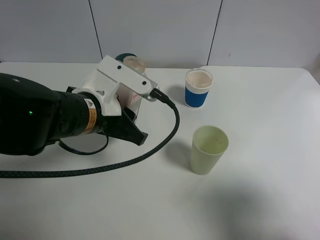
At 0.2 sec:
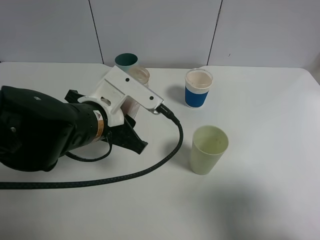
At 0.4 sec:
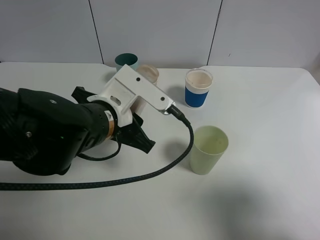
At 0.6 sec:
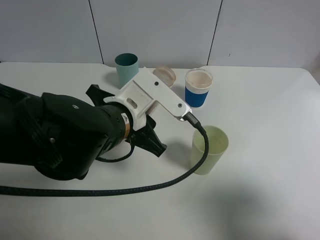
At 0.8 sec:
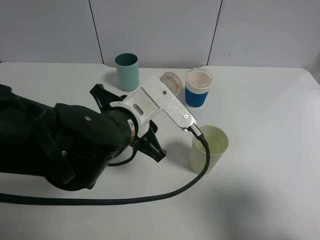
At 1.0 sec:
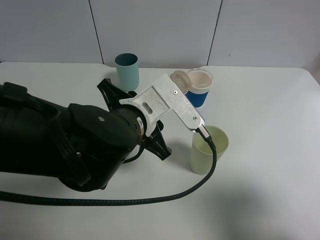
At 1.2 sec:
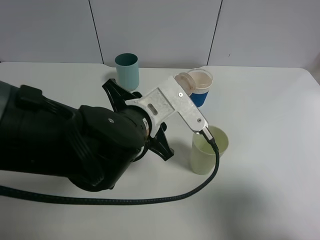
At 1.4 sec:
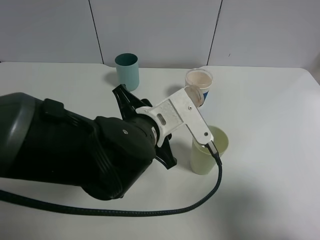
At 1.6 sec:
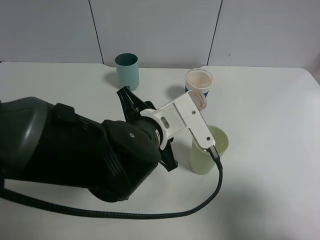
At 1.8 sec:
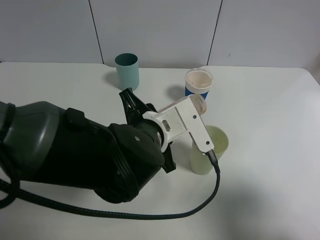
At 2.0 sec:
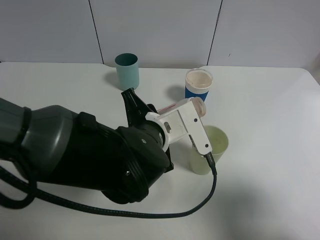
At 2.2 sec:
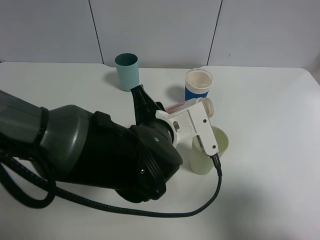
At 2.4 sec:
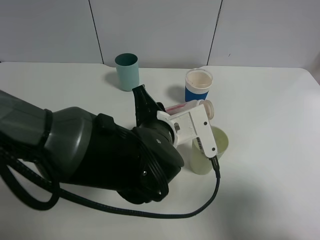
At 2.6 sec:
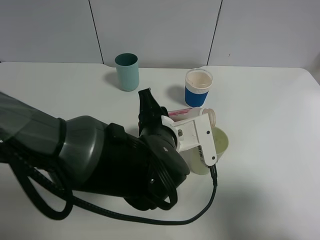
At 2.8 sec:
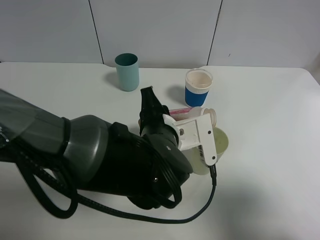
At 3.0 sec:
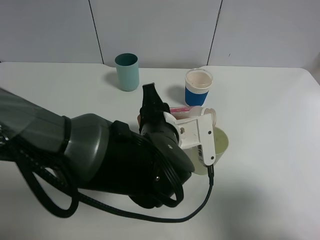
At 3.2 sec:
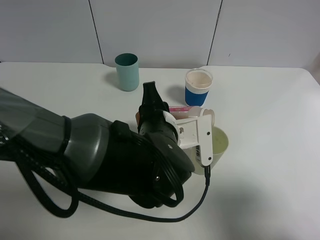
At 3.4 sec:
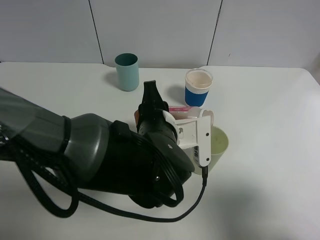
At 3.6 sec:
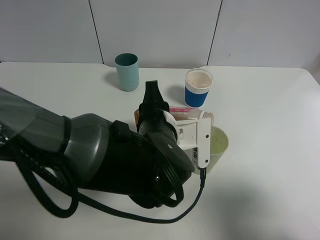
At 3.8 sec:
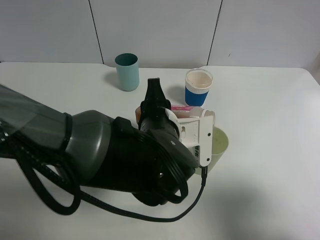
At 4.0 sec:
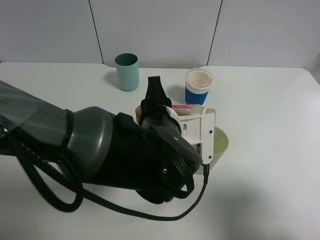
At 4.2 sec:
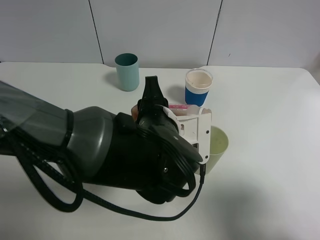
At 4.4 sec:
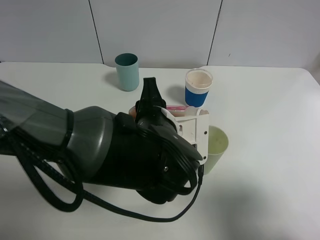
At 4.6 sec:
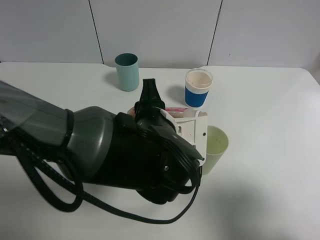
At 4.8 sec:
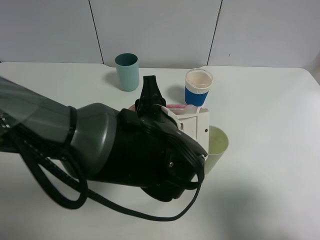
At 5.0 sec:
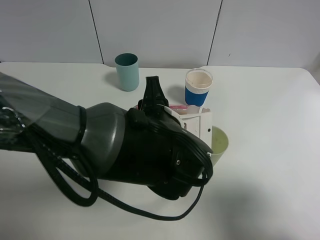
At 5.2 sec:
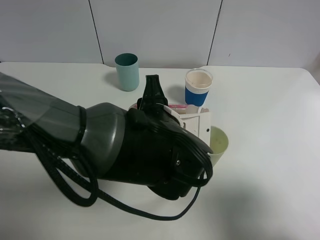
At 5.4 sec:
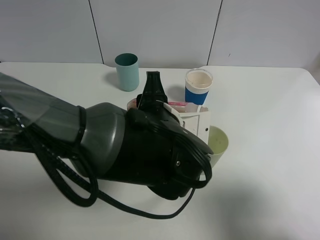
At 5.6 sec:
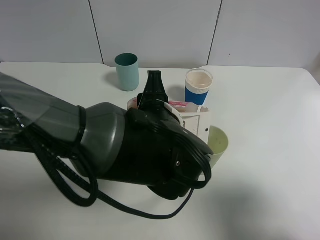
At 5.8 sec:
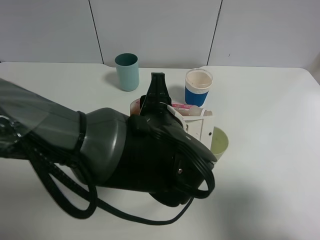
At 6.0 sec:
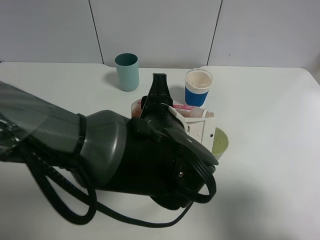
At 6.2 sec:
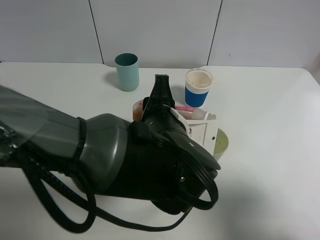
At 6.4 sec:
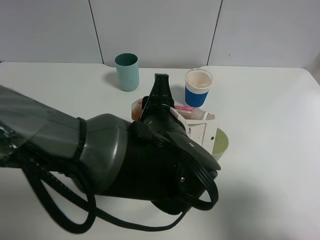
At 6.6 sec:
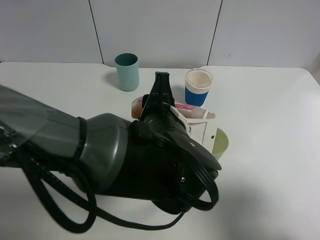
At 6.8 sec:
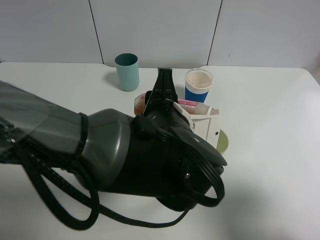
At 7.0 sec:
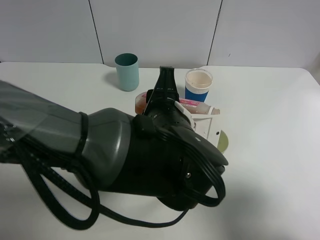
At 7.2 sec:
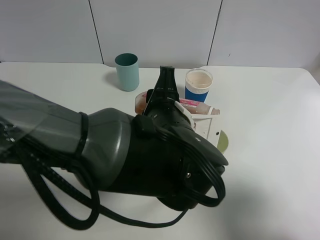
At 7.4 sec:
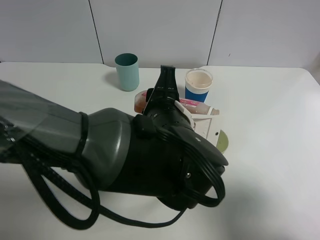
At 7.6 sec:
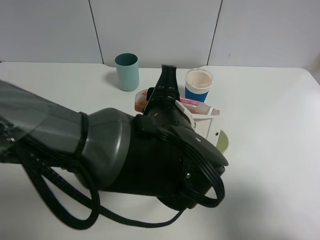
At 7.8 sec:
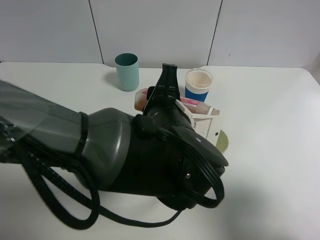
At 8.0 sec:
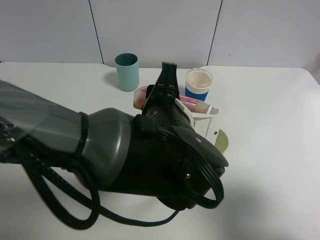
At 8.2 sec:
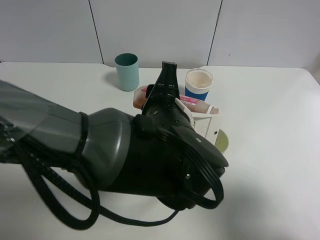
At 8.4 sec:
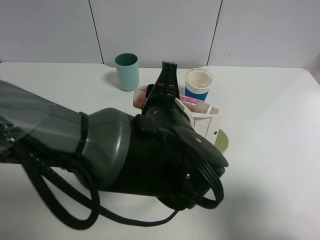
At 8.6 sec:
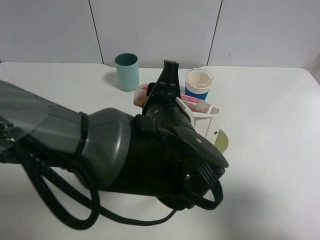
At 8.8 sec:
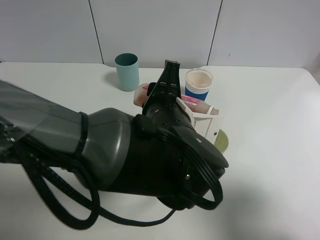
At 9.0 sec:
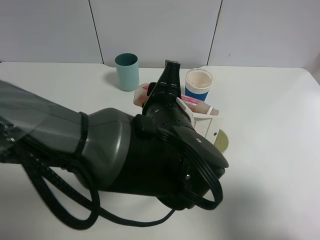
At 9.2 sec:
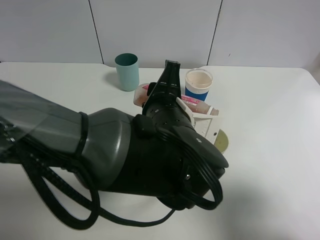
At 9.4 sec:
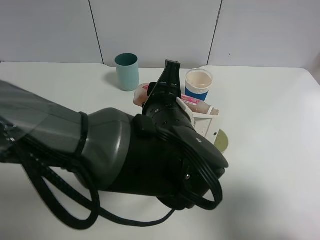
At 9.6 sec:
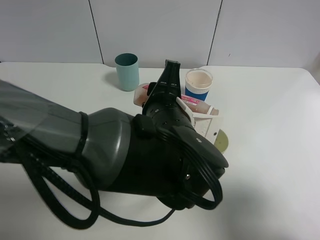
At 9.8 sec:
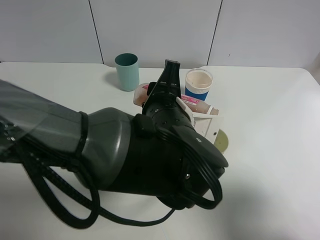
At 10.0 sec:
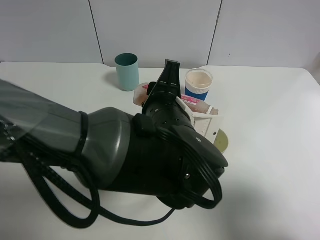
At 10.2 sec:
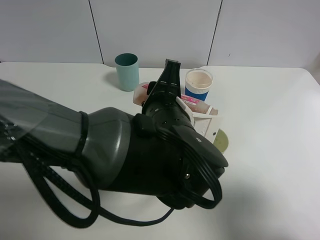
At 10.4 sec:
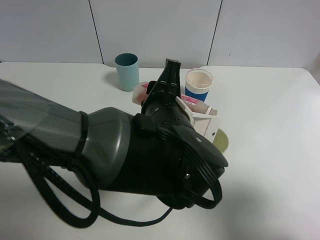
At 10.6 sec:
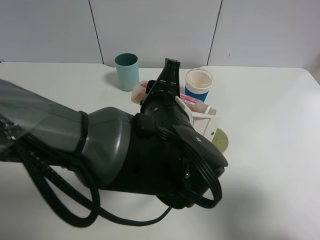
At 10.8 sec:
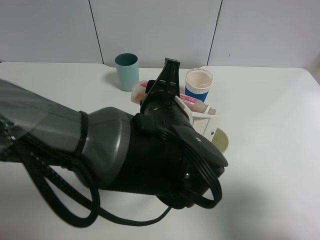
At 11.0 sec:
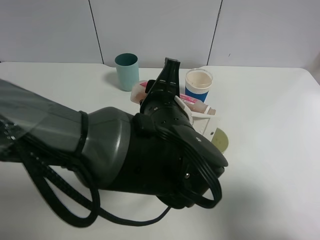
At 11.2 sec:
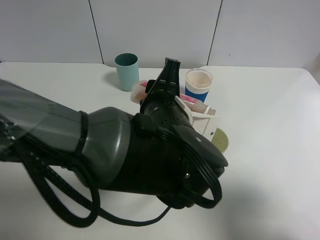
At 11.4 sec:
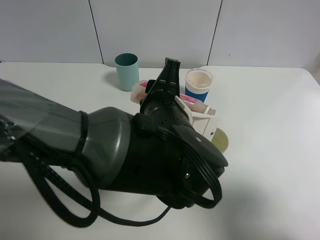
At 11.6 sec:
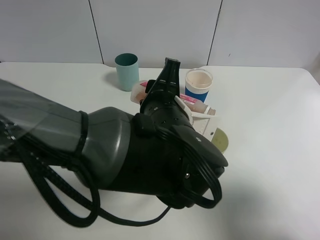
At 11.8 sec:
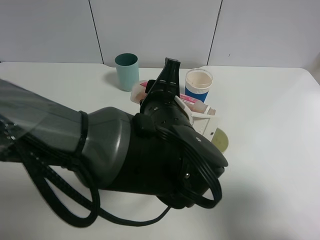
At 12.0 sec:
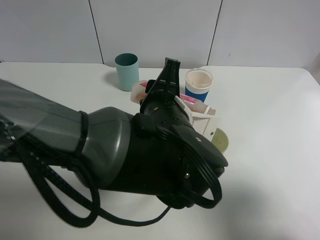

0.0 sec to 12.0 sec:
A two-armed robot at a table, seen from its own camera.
Task of the whole recording: use a gripper to hold the bottle of the drink and pour it into a random cup.
0.0 sec to 1.6 sec: The left gripper is displaced to the right by some 10 cm.
3.0 sec to 6.0 sec: The grippers move only a little.
6.0 sec to 9.0 sec: The grippers move only a little.
9.0 sec to 12.0 sec: The two grippers keep their place.

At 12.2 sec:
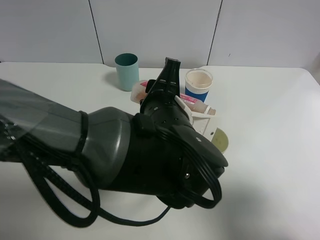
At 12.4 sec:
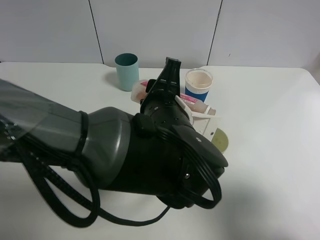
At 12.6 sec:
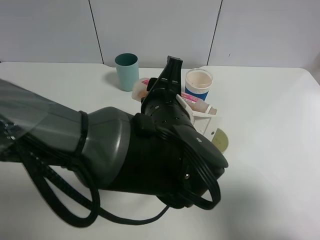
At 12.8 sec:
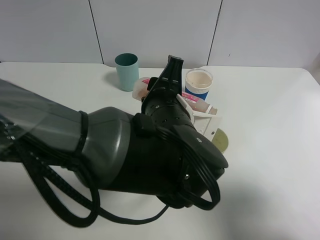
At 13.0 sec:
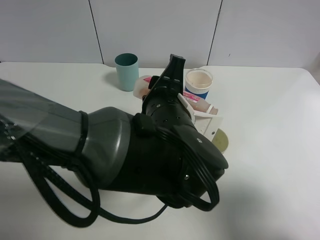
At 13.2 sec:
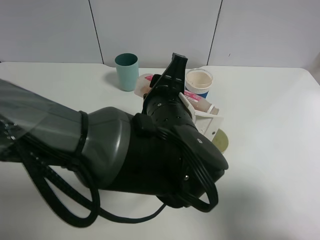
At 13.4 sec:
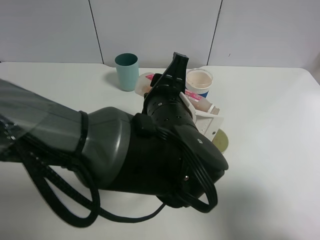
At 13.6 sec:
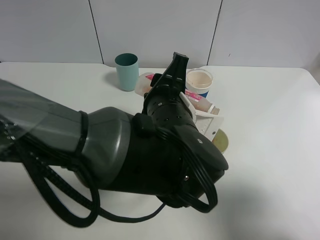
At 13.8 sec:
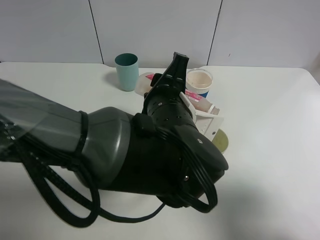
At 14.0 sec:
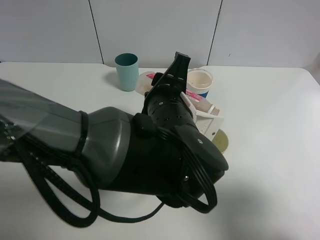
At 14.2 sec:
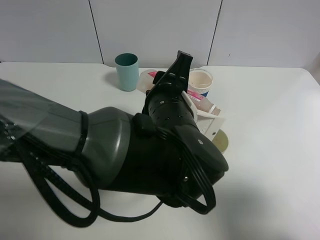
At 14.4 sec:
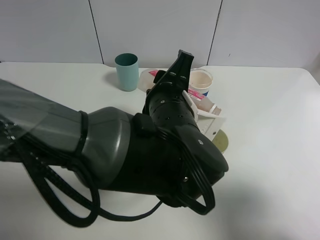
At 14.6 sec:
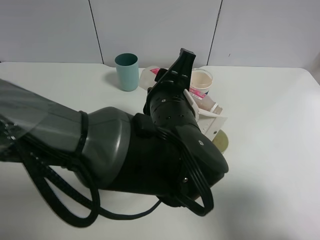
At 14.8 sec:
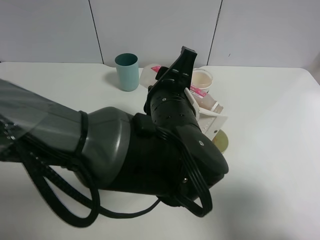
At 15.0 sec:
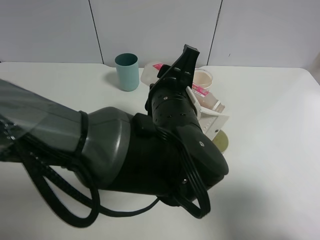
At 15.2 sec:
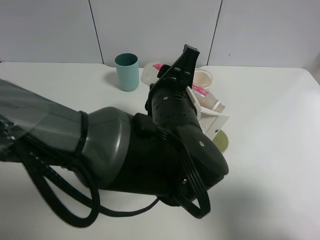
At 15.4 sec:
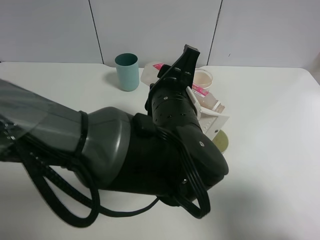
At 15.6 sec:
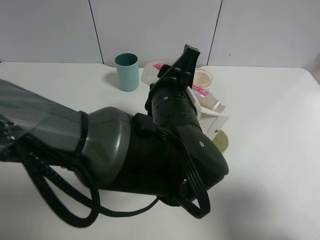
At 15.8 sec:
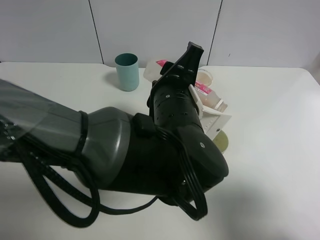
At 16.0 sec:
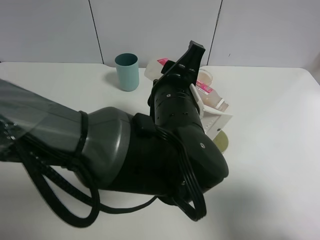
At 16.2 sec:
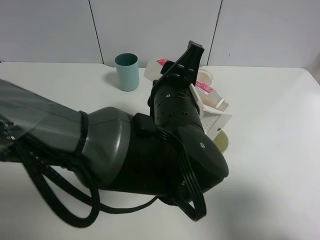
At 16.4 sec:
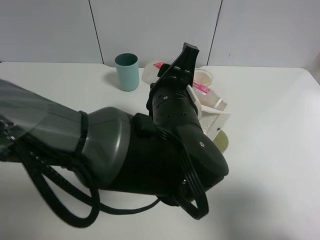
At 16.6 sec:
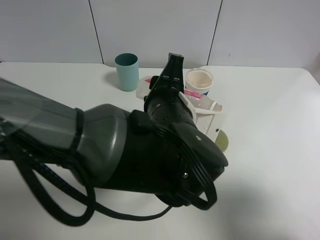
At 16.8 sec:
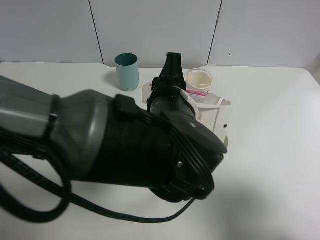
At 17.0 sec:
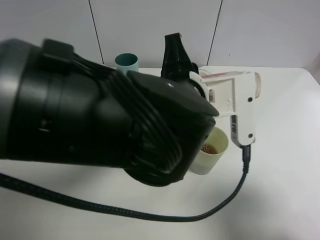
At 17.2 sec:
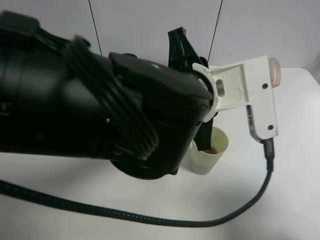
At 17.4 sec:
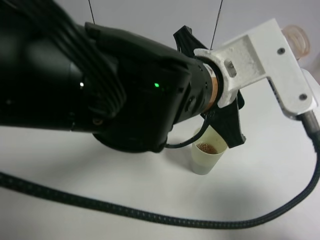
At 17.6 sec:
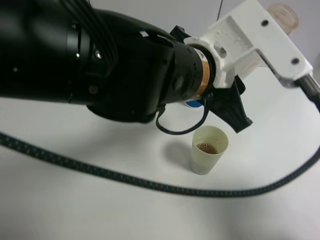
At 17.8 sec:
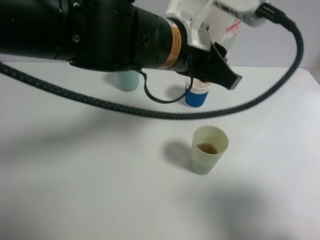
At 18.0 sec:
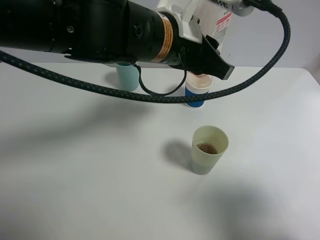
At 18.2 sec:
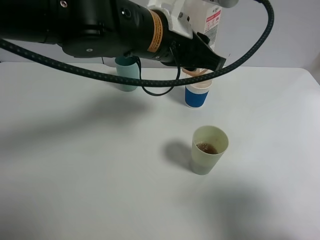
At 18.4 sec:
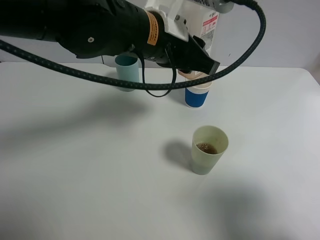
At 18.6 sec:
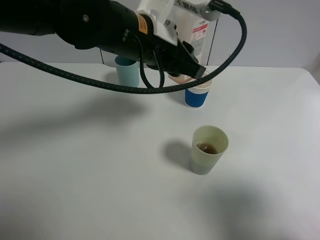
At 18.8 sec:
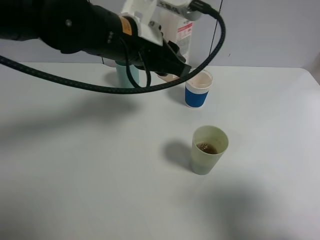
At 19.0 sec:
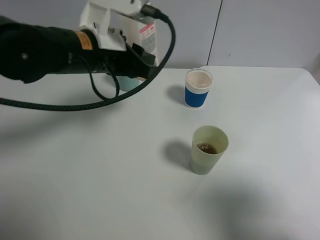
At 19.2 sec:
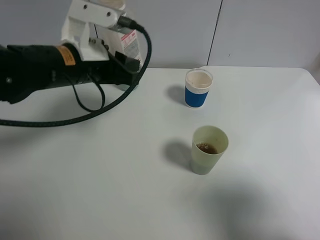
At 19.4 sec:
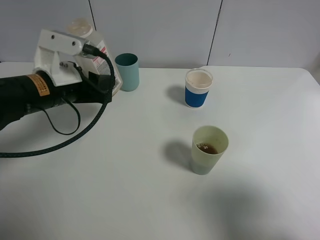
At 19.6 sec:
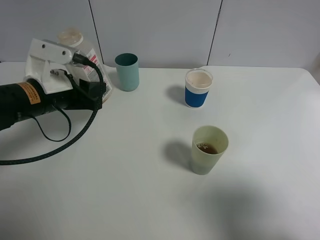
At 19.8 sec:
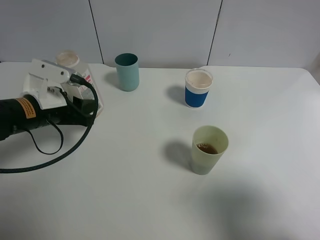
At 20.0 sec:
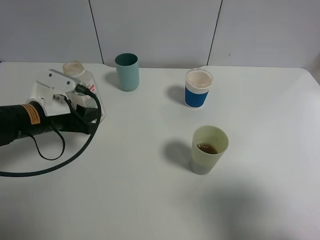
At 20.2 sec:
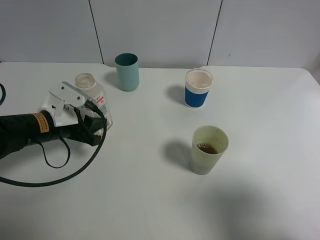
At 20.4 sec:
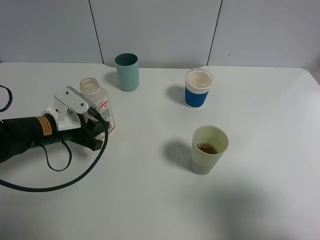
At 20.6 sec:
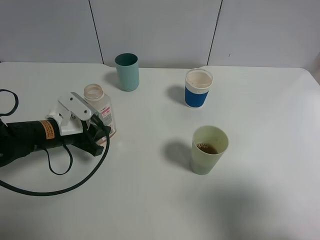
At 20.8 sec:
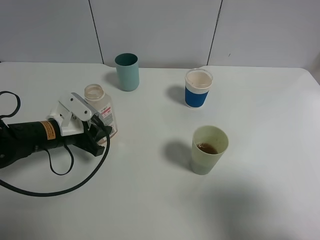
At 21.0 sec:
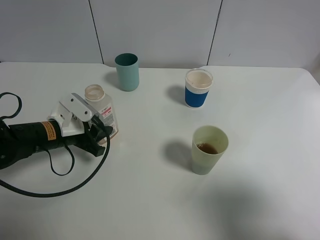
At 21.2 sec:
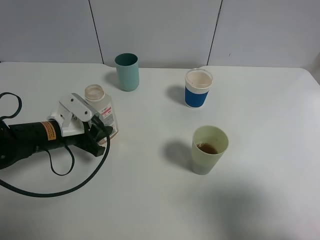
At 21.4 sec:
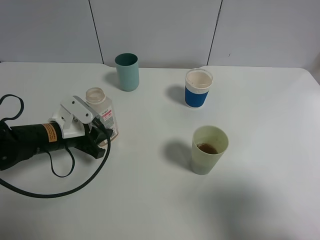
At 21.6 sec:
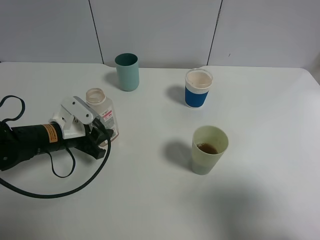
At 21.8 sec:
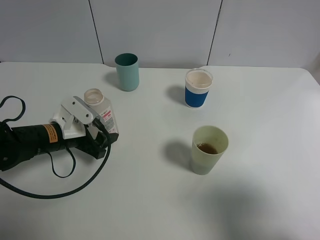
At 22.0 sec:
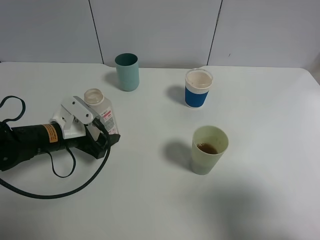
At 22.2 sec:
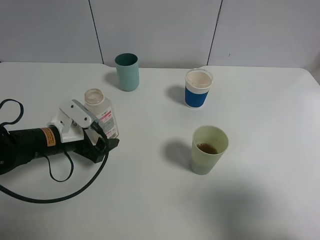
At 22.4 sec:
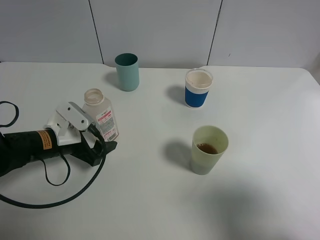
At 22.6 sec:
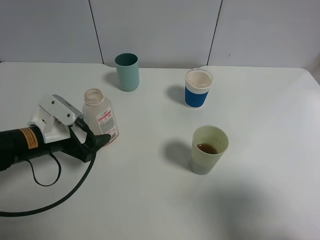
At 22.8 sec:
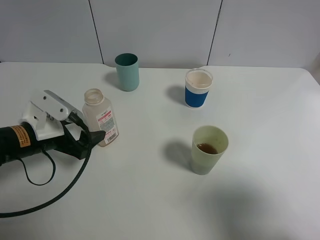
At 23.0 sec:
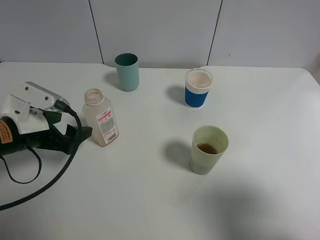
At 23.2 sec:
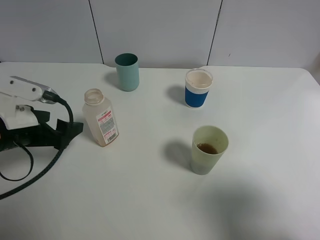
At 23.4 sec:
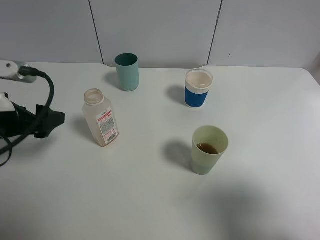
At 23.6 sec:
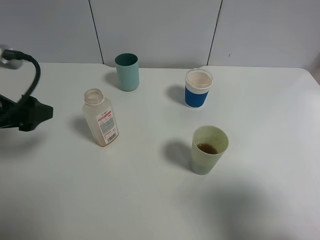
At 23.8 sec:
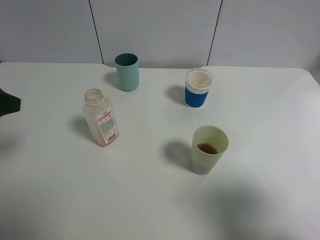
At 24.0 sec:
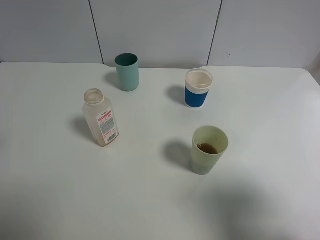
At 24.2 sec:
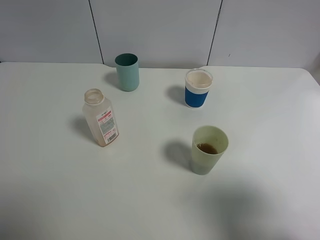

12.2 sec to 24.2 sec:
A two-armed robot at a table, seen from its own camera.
Task of the whole recording: use a gripper to hold the bottle of the drink and pour it into a random cup.
Step, 12.2 sec to 16.8 sec: Pour the cranberry juice into the White Plastic Cup with the left gripper.
Step, 17.0 sec to 22.8 sec: Place the cranberry juice bottle on the table with the left gripper.
12.2 sec to 16.6 sec: The grippers move only a little.
16.6 sec to 18.2 sec: The left gripper shifts approximately 10 cm upward and forward.
18.2 sec to 19.8 sec: The left gripper shifts some 25 cm to the left and downward.
19.8 sec to 21.2 sec: The left gripper moves downward, approximately 5 cm.
21.2 sec to 22.6 sec: The left gripper opens.
22.6 sec to 24.2 sec: The left gripper is displaced upward, backward and to the left by about 25 cm.
